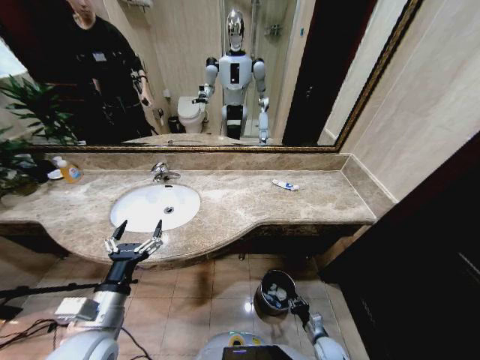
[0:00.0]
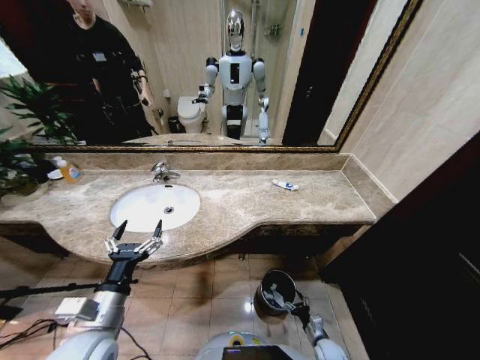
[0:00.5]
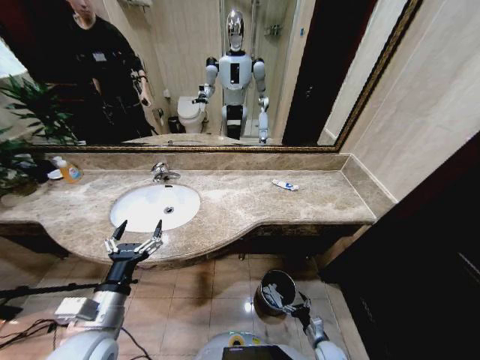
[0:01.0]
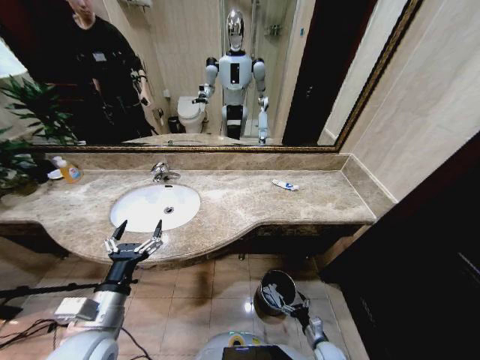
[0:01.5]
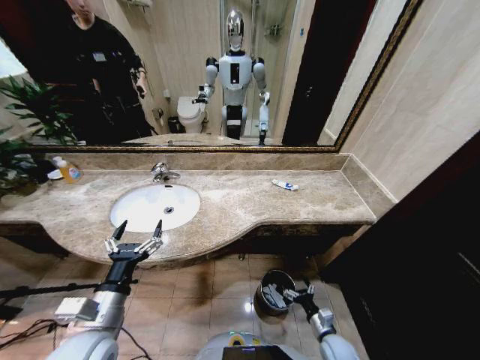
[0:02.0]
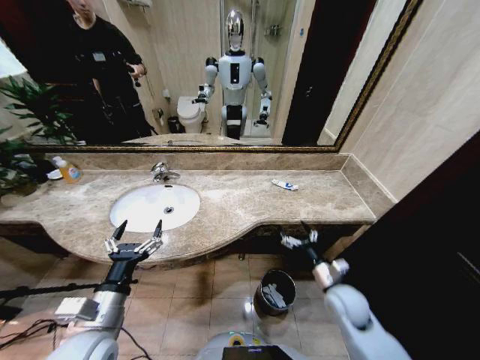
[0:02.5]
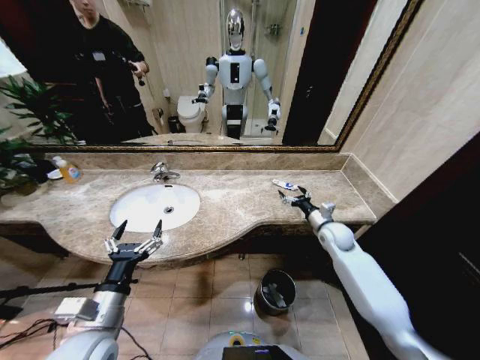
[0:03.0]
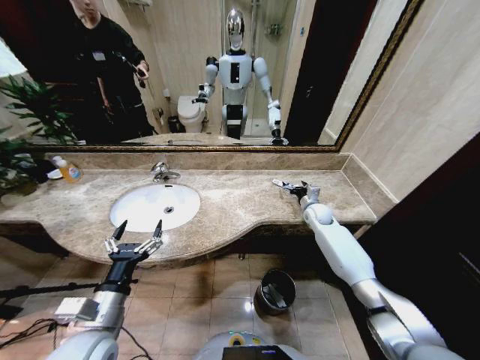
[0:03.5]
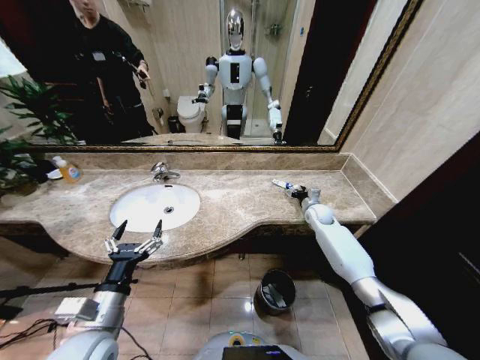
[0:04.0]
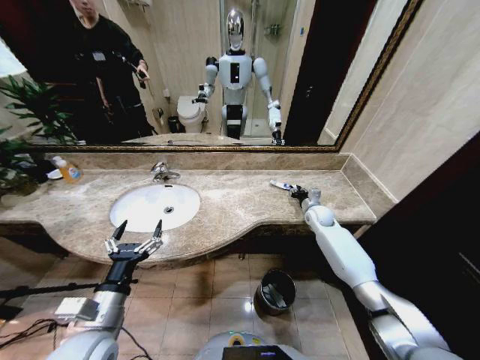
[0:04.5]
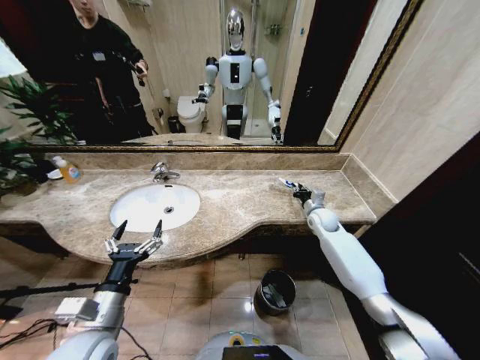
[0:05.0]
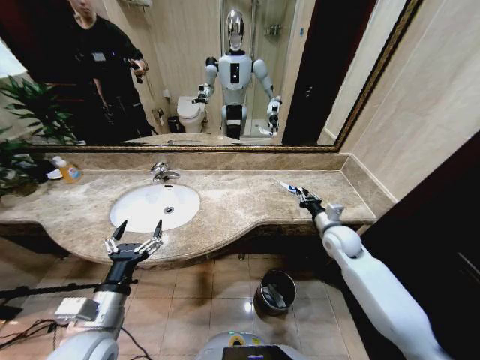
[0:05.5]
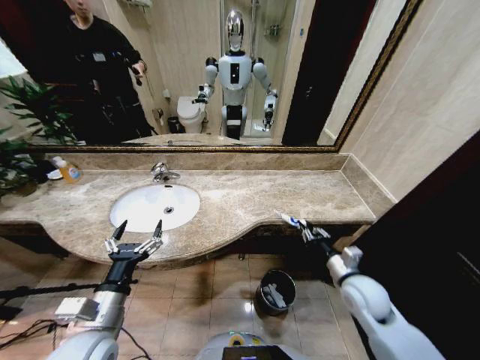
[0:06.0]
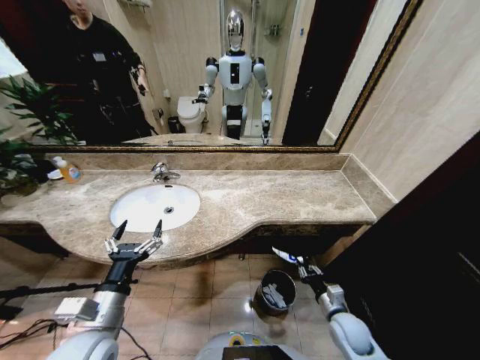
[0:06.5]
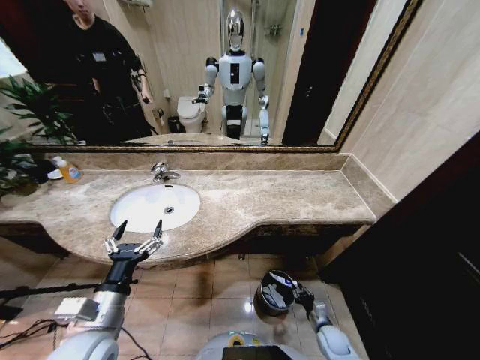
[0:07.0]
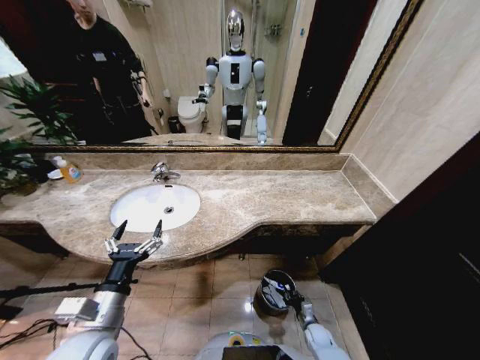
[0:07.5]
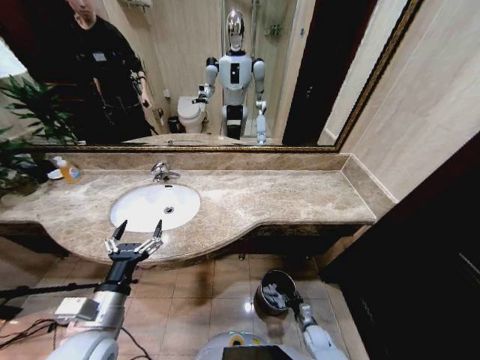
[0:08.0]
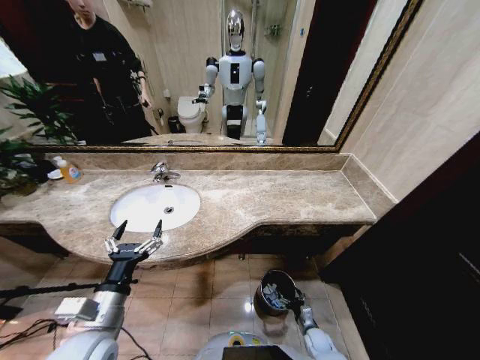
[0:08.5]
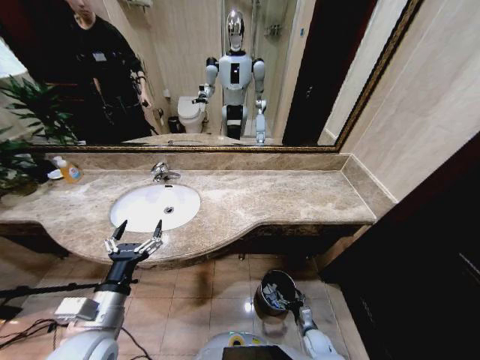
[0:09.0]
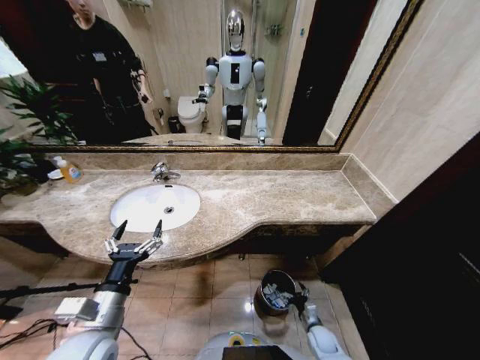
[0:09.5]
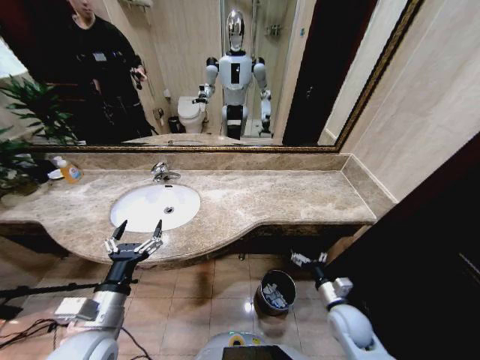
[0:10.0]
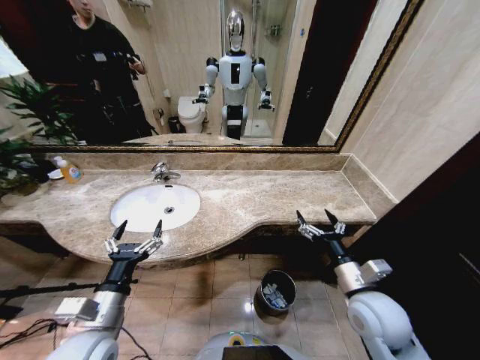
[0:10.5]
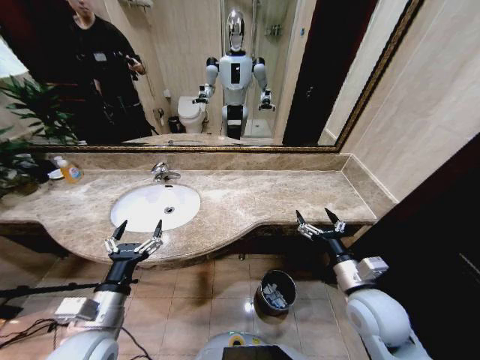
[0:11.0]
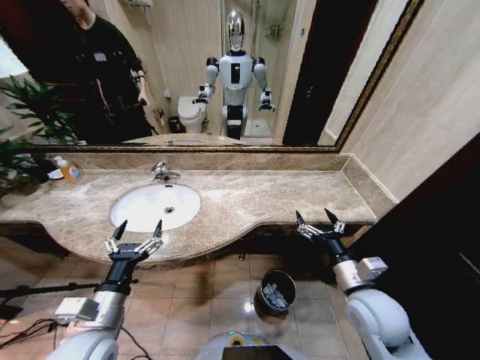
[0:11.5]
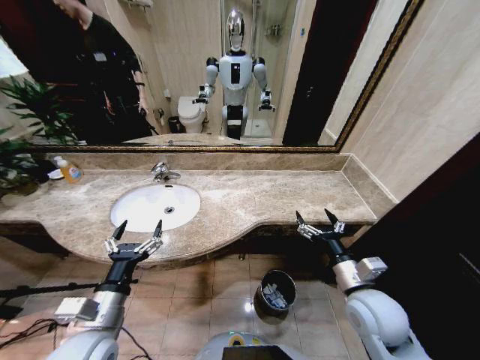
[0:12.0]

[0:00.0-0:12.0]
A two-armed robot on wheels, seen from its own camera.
Task of the whole recording: Pick up the trash from the sink and place it in the trash bin.
0:00.0 to 0:02.0: The right gripper is displaced upward by about 10 cm, and opens up.
0:02.0 to 0:04.0: The right gripper shifts roughly 40 cm forward and upward.
0:04.0 to 0:06.0: The right gripper is displaced backward by some 30 cm, and closes up.
0:06.0 to 0:08.0: The right gripper goes approximately 35 cm downward.
0:08.0 to 0:10.0: The right gripper shifts some 25 cm upward, and opens up.
0:10.0 to 0:12.0: The right gripper is displaced upward by about 15 cm.

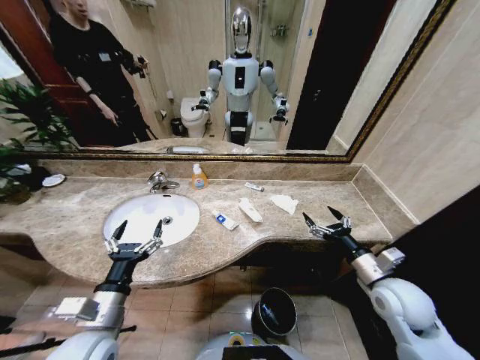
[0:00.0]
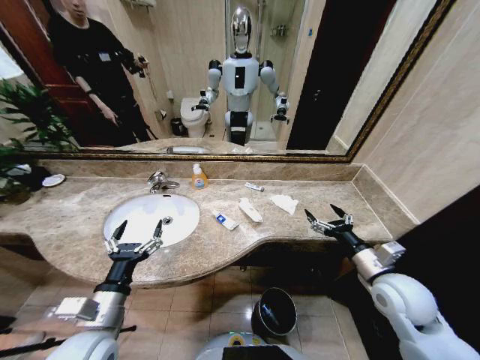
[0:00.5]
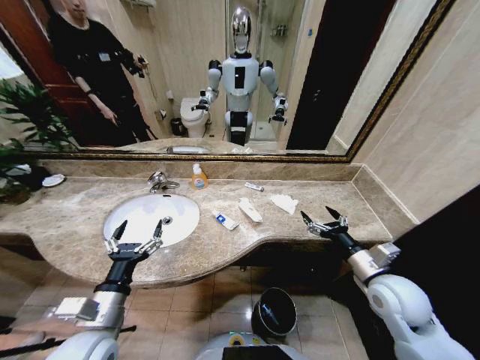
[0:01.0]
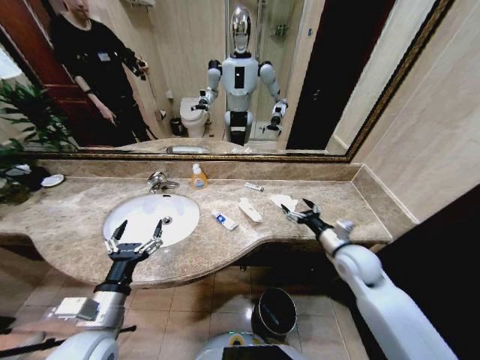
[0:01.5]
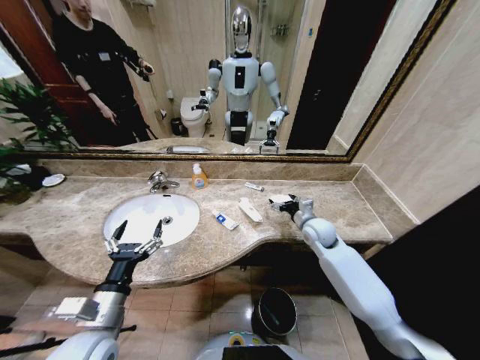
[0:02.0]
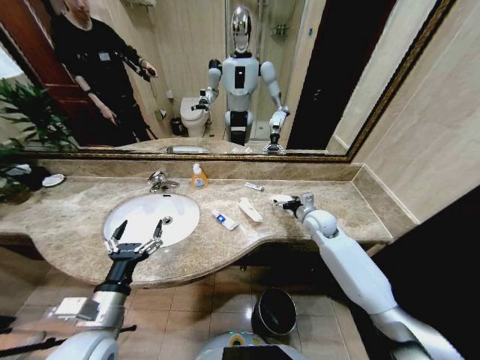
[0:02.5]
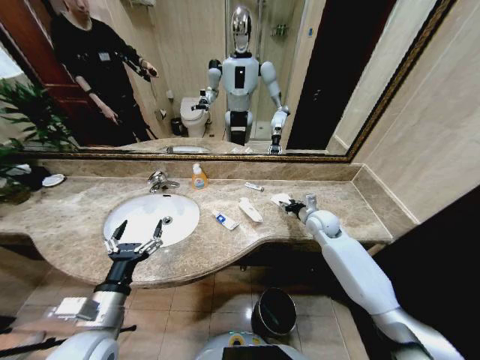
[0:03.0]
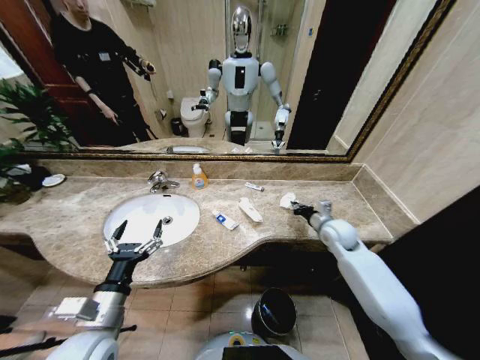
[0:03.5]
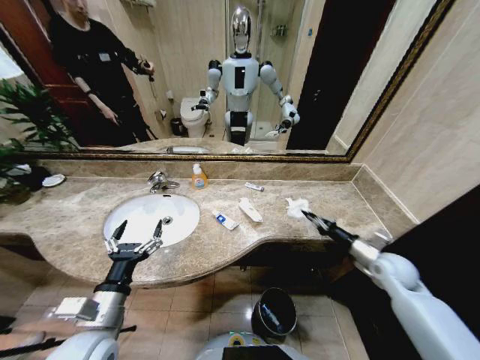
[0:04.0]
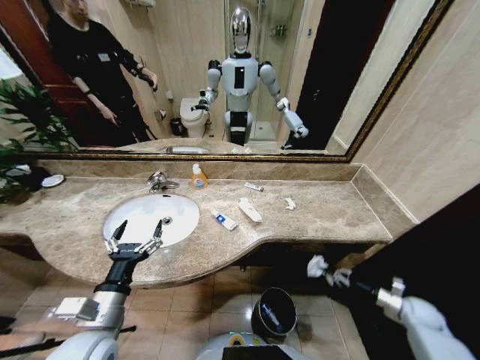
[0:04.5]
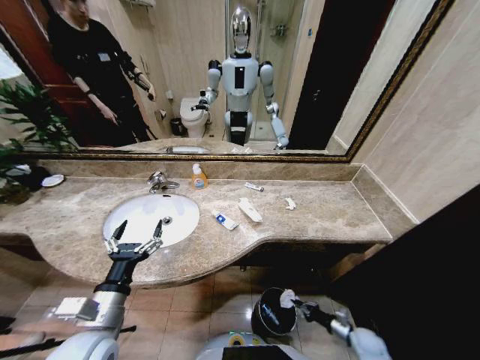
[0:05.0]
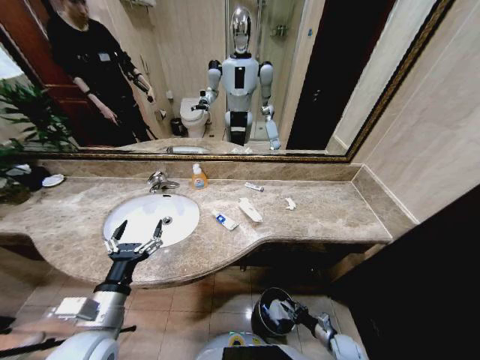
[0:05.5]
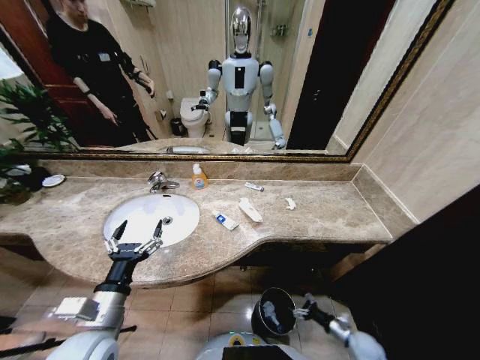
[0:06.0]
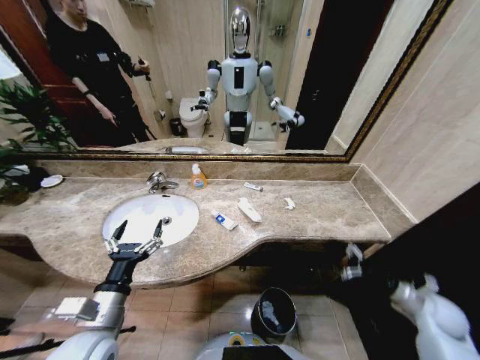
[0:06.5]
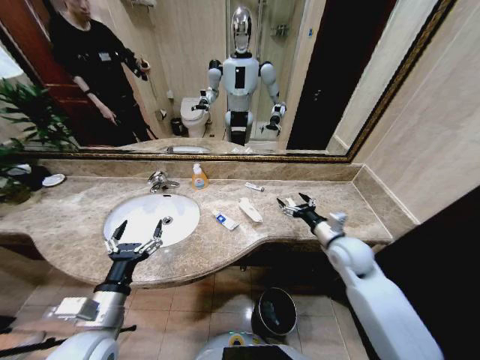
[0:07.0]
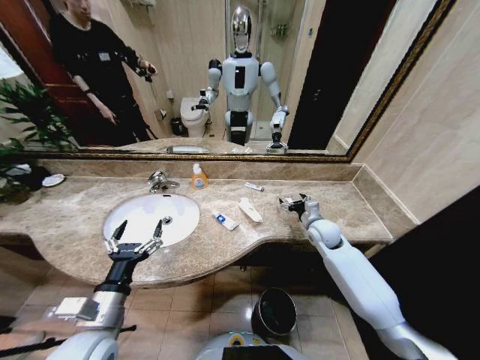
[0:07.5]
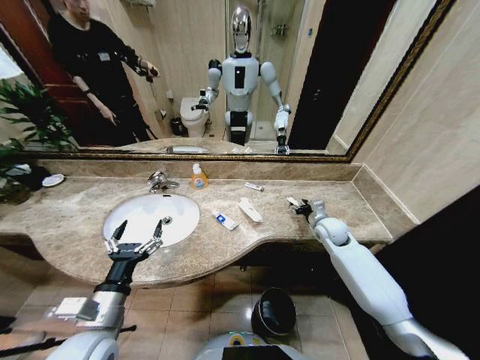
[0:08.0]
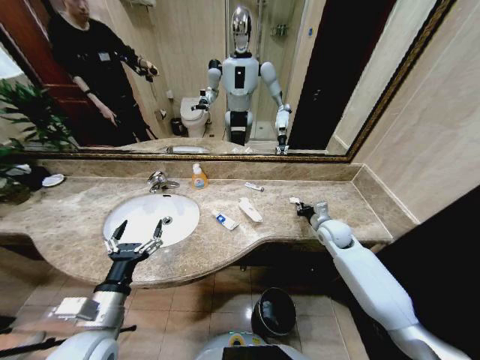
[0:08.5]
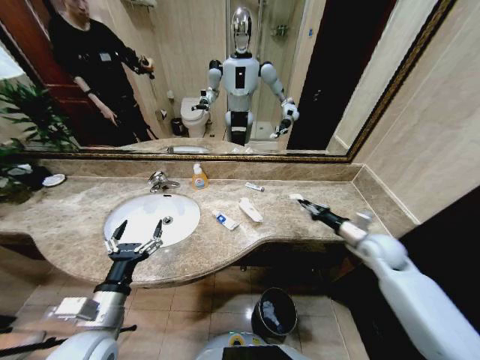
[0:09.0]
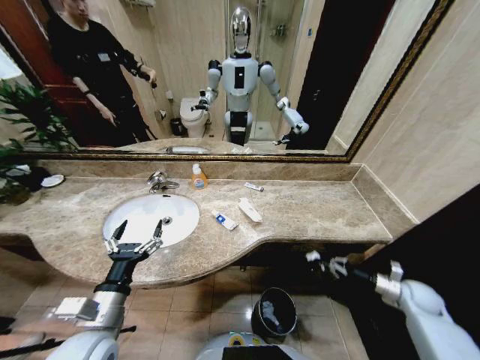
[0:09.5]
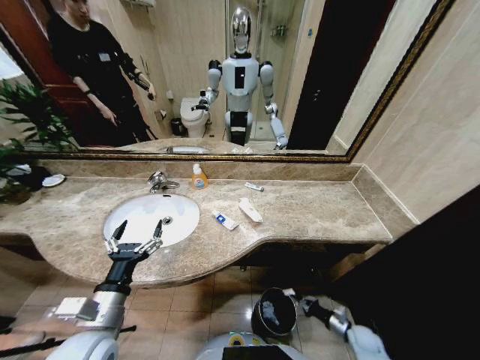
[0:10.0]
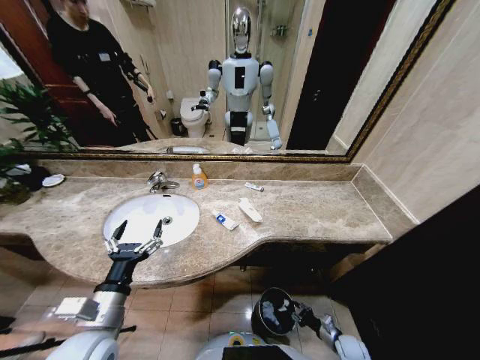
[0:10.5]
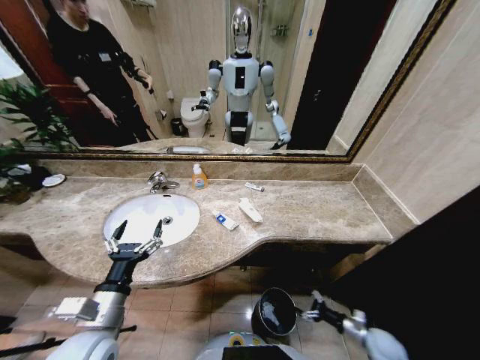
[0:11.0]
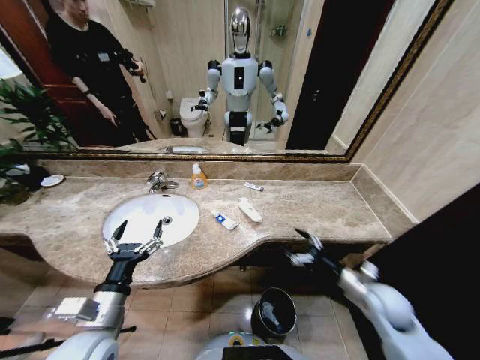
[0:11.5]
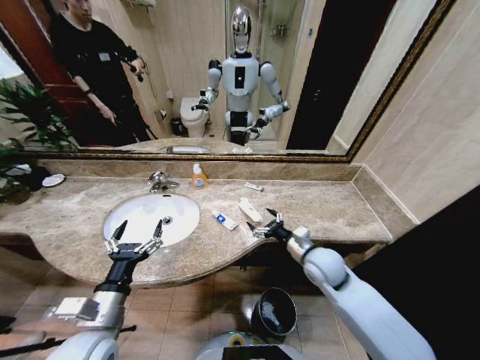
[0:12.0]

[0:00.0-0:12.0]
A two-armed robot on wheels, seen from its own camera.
Task of the whole recording: Pick up the trash from the sink and place it in the trash bin.
0:02.0 to 0:04.0: The right gripper shifts about 20 cm to the right and backward, and closes its fingers.
0:04.0 to 0:06.0: The right gripper is displaced downward and backward by approximately 35 cm, and opens its fingers.
0:06.0 to 0:08.0: The right gripper goes roughly 40 cm upward, forward and to the left.
0:08.0 to 0:10.0: The right gripper is displaced downward and backward by about 40 cm, and closes up.
0:10.0 to 0:12.0: The right gripper shifts approximately 40 cm upward and to the left, and opens.

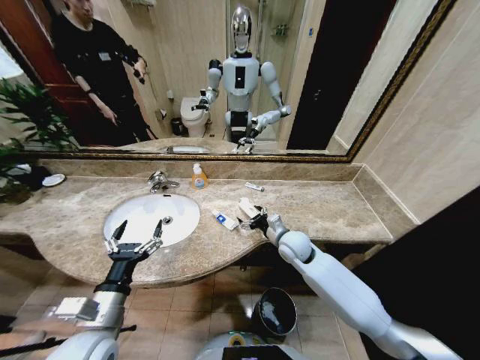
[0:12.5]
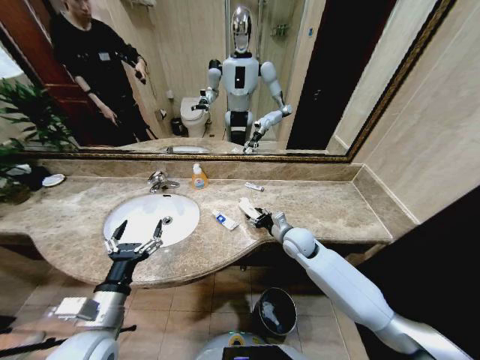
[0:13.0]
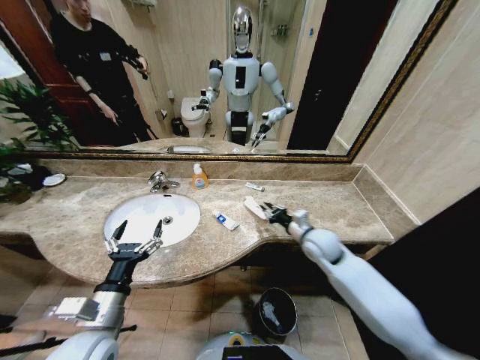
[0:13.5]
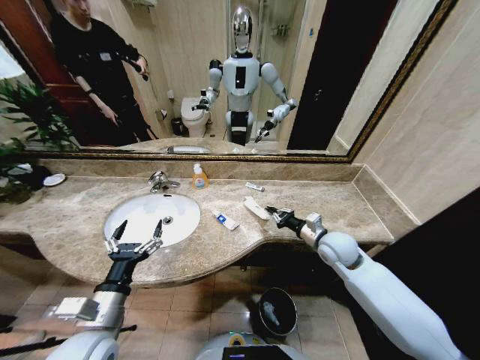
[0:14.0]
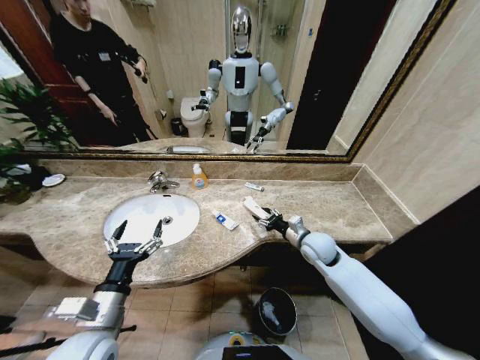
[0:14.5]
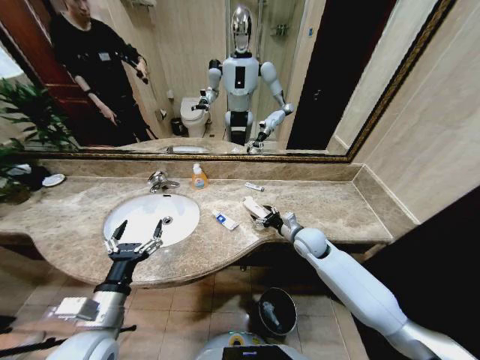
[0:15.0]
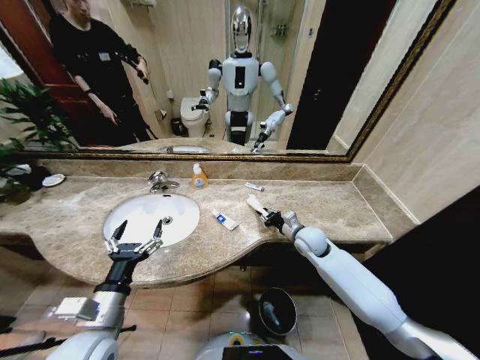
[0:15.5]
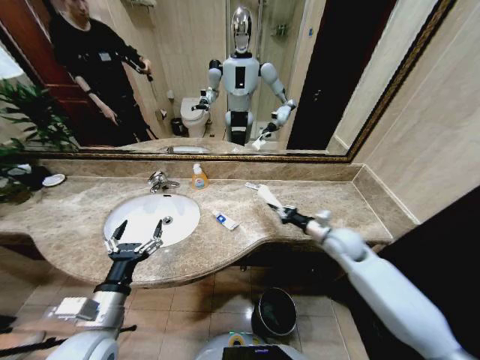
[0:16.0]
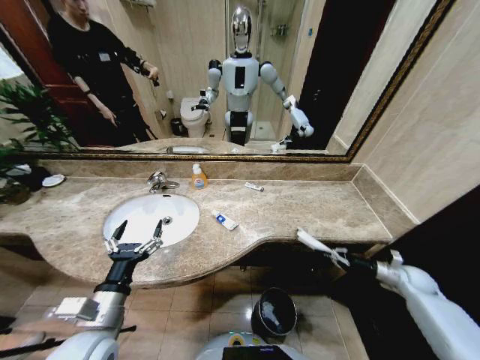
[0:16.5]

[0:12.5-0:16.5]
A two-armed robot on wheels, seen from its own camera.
Task of the whole recording: Pick up the trash from the sink and place it in the trash bin.
0:12.5 to 0:14.5: The right gripper travels to the right by some 5 cm, and closes its fingers.
0:14.5 to 0:16.5: The right gripper moves to the right, roughly 35 cm, and closes its fingers.
